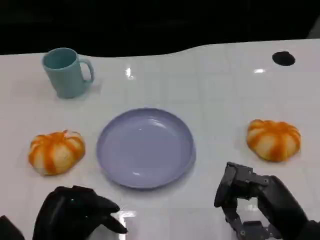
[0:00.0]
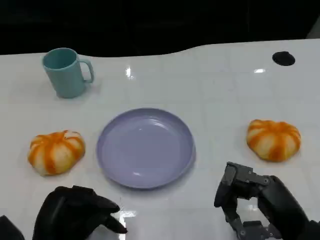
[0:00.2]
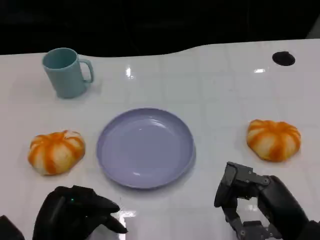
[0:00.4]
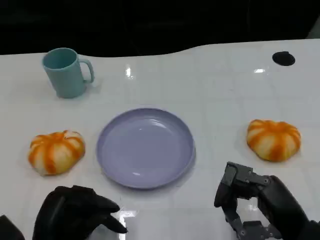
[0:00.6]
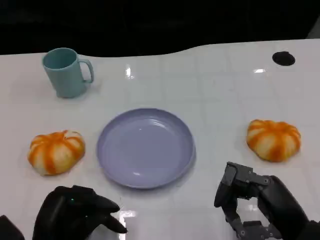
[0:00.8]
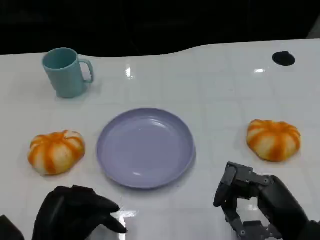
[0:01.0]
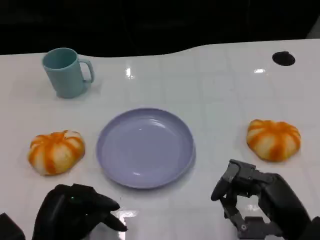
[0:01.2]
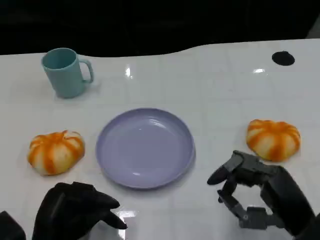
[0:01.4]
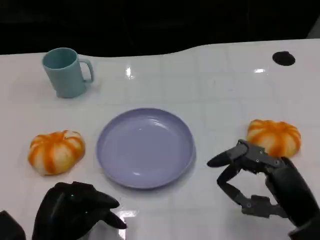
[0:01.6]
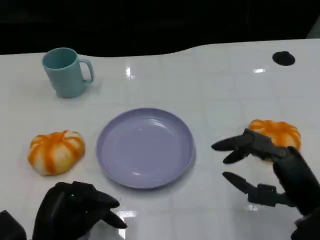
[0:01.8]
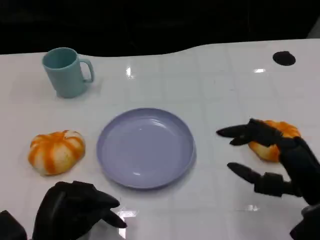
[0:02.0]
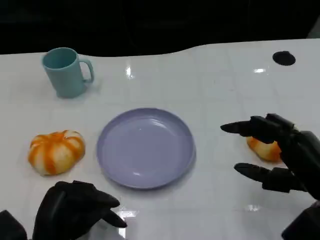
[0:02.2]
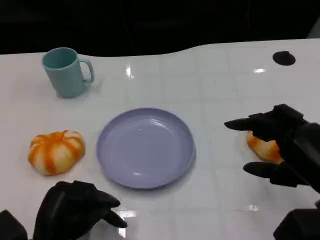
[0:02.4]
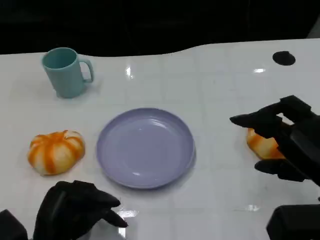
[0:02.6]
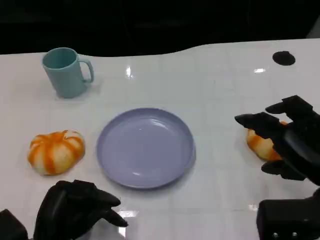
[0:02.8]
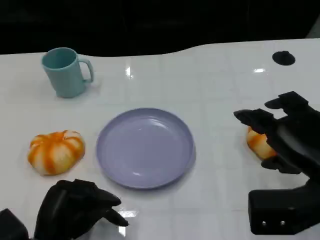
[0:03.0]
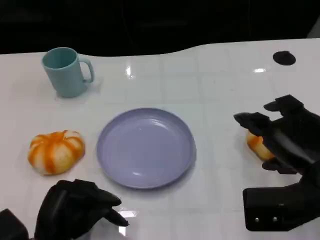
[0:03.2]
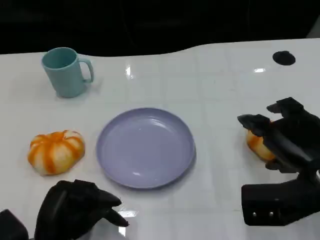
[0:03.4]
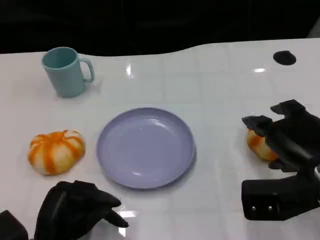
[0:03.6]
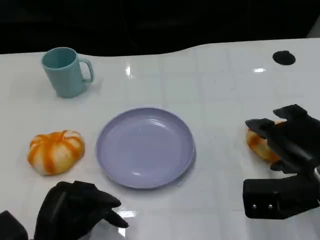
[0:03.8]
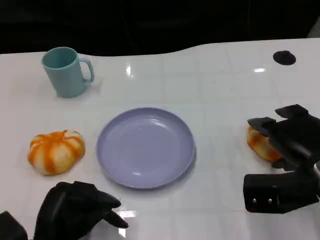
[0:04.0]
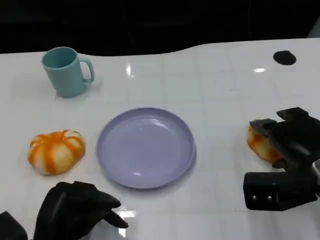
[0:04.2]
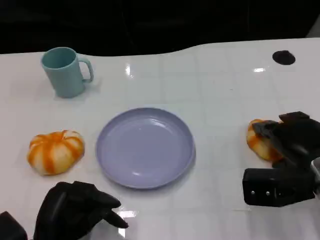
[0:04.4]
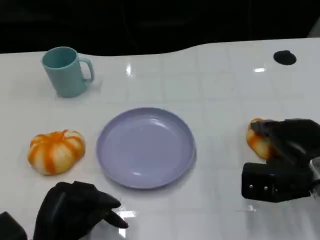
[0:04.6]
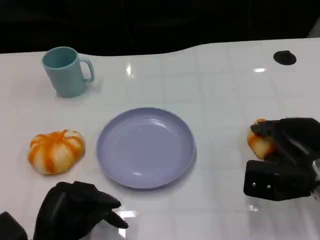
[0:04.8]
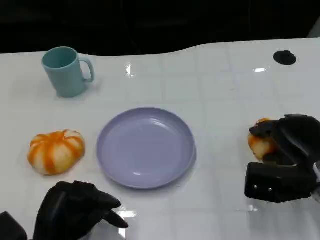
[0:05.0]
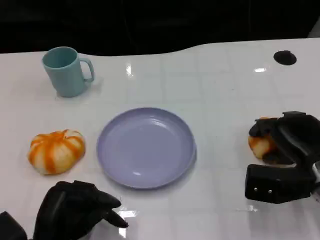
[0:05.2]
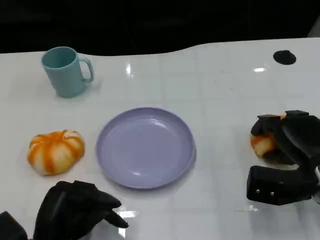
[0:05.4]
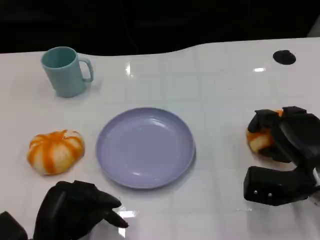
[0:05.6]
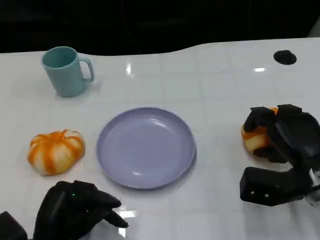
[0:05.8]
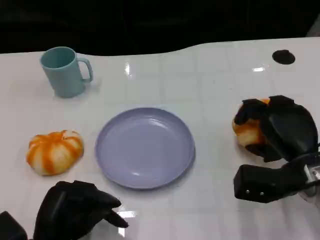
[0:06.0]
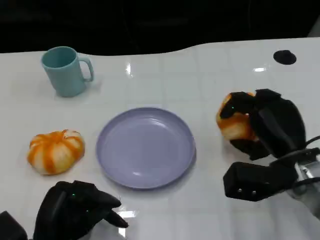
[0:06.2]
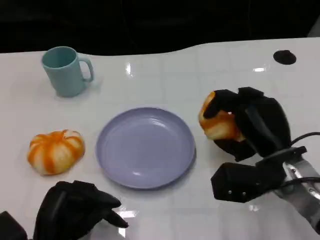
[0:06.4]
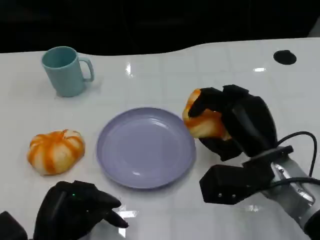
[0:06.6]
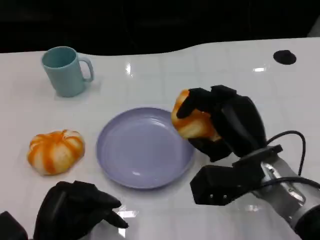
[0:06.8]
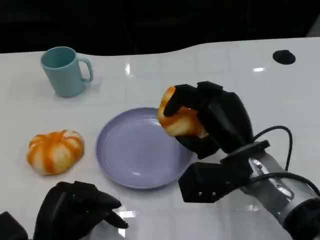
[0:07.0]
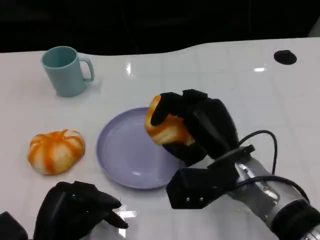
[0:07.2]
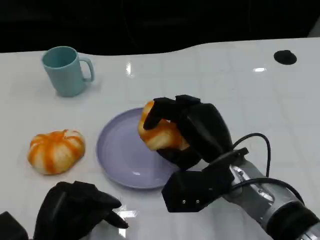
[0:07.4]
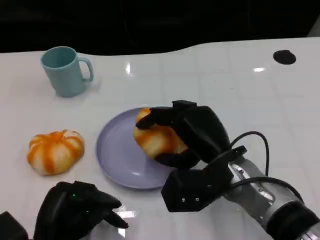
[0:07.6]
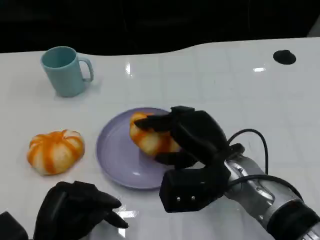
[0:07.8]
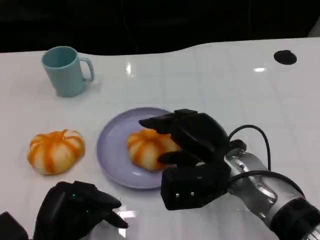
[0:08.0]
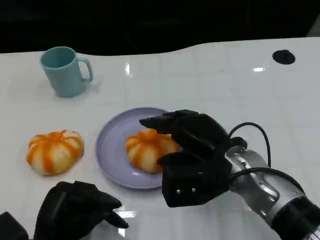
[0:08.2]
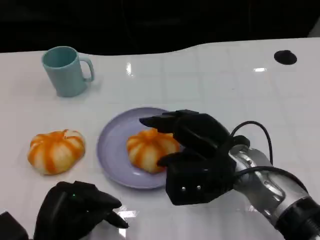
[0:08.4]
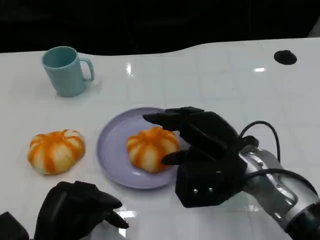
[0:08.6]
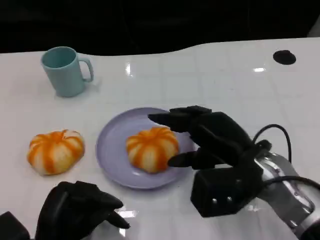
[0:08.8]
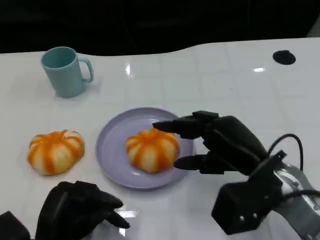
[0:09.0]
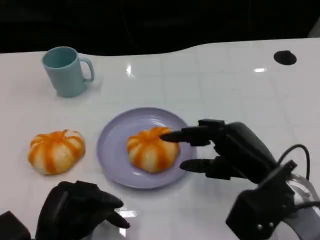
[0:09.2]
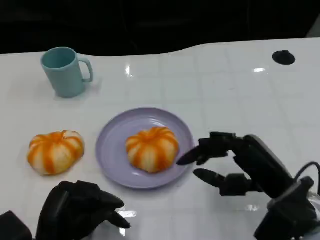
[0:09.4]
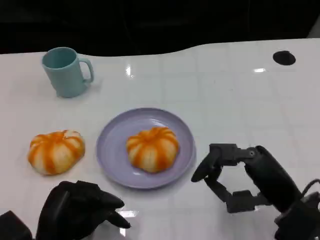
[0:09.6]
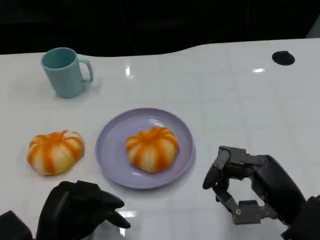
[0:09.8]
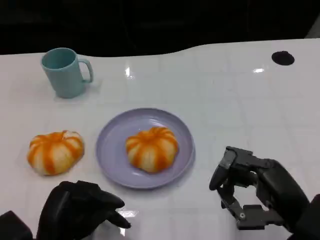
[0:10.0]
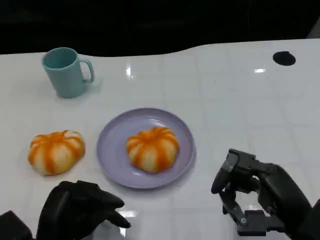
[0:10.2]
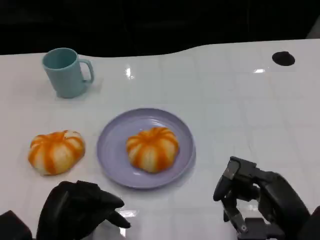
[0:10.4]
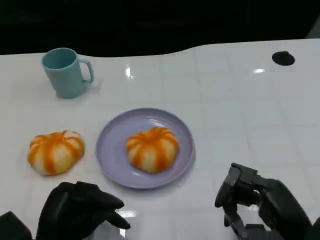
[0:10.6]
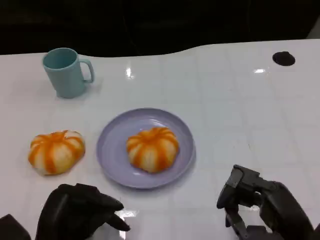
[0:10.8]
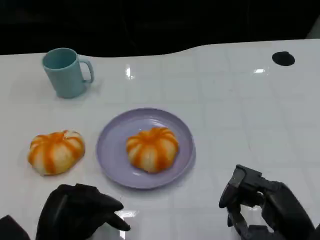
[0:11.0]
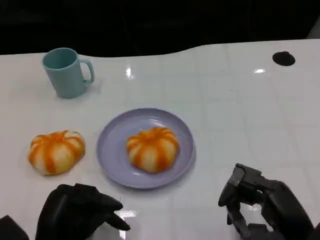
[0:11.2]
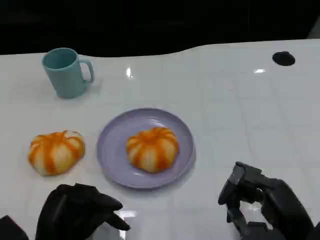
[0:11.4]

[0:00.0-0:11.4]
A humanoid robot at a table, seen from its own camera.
Task of the whole recording: Grasp the bread from the table and place it into the plate.
0:00.0 to 0:01.4: The hands make only small movements.
0:01.4 to 0:02.8: The right hand moves upward, some 5 cm.
0:02.8 to 0:04.2: The right hand goes roughly 10 cm forward and downward.
0:05.6 to 0:07.2: The right hand travels to the left by some 15 cm.
0:08.6 to 0:10.0: The right hand heads backward and to the right, covering about 15 cm.
0:10.0 to 0:11.4: The hands make only small movements.

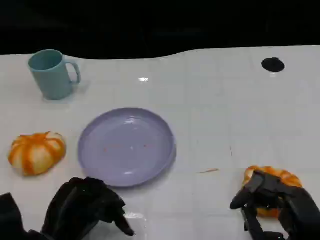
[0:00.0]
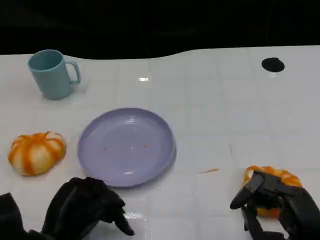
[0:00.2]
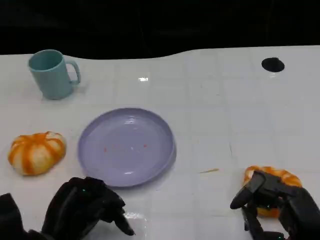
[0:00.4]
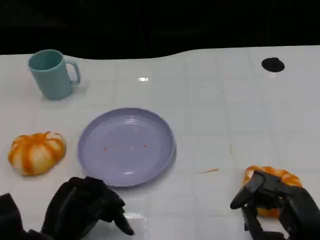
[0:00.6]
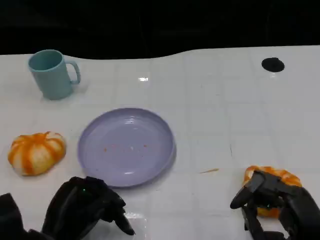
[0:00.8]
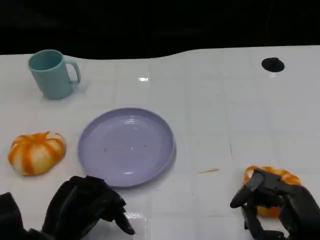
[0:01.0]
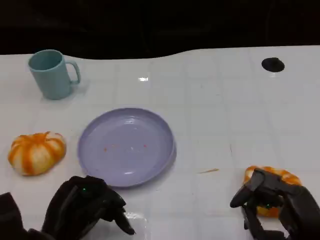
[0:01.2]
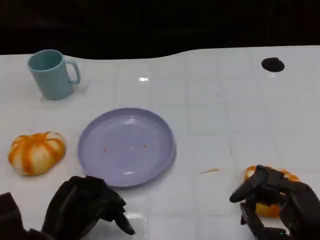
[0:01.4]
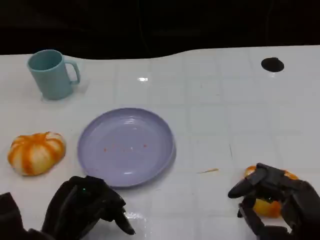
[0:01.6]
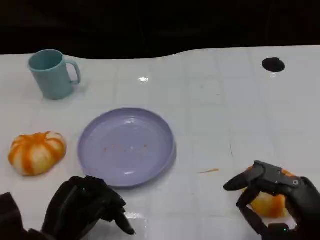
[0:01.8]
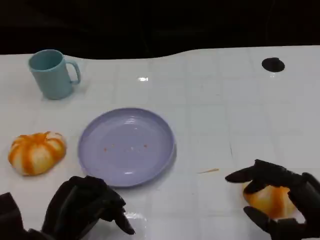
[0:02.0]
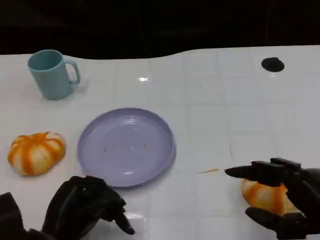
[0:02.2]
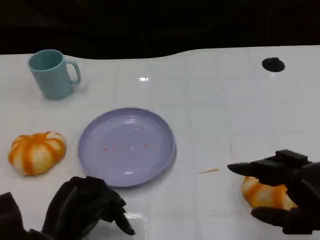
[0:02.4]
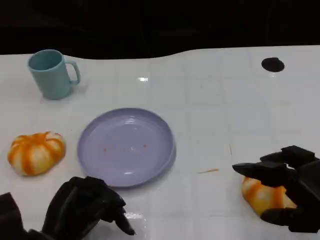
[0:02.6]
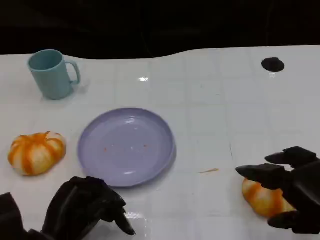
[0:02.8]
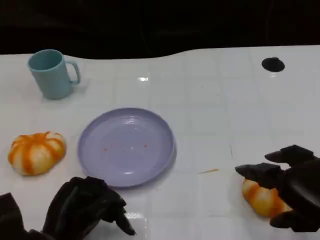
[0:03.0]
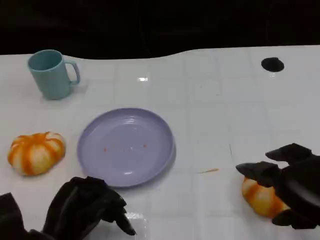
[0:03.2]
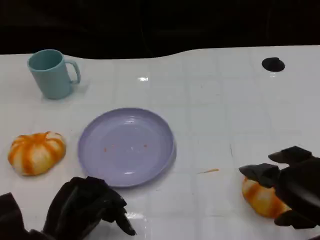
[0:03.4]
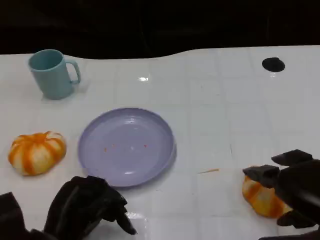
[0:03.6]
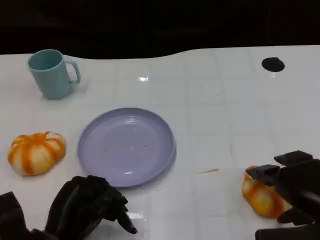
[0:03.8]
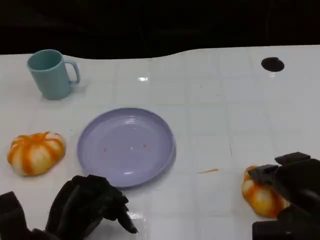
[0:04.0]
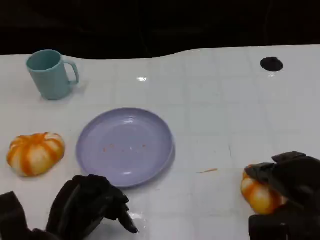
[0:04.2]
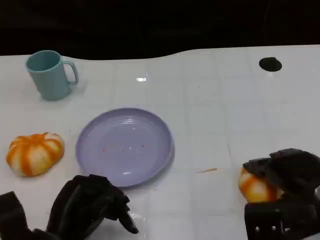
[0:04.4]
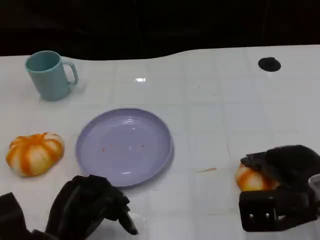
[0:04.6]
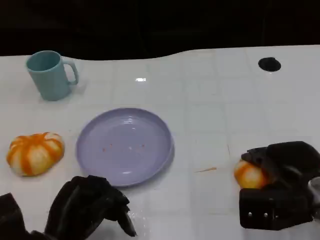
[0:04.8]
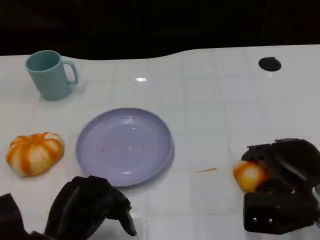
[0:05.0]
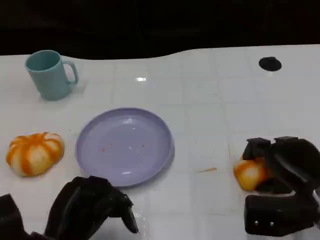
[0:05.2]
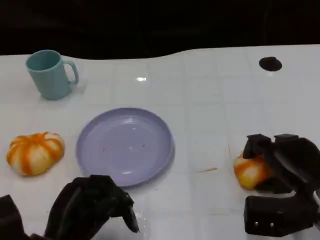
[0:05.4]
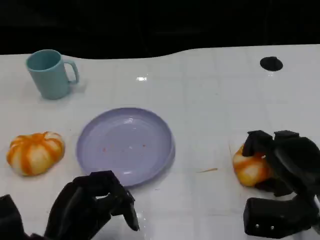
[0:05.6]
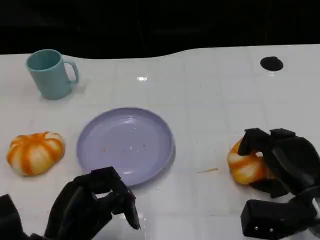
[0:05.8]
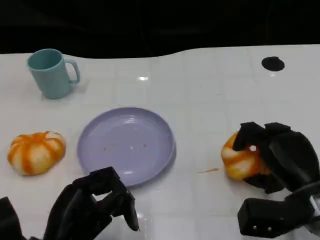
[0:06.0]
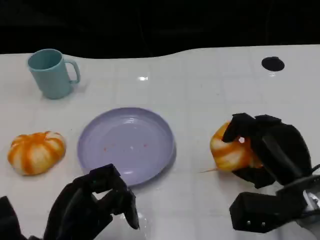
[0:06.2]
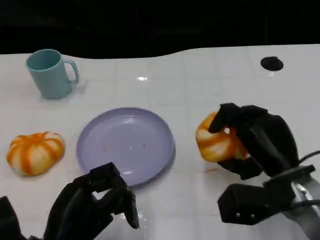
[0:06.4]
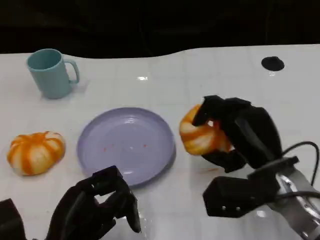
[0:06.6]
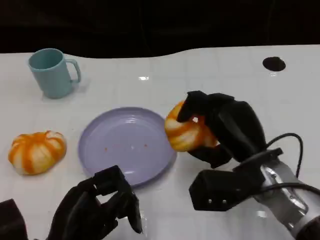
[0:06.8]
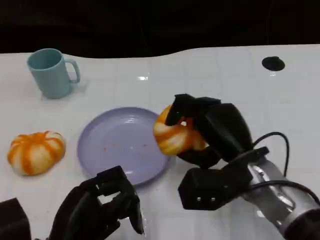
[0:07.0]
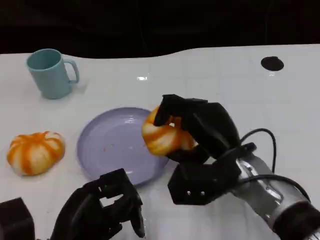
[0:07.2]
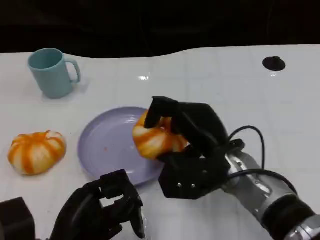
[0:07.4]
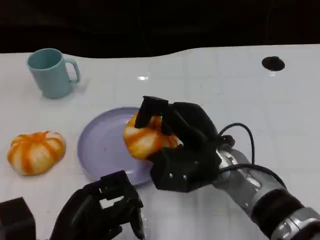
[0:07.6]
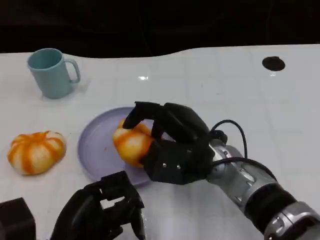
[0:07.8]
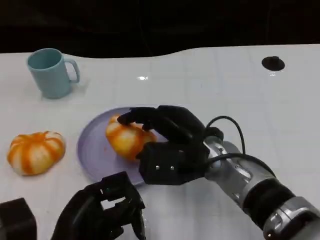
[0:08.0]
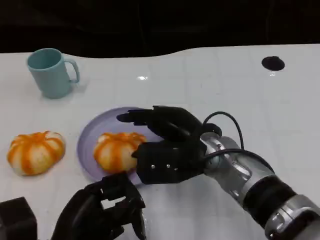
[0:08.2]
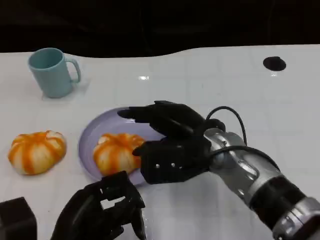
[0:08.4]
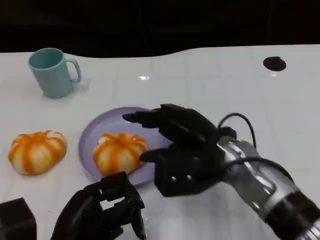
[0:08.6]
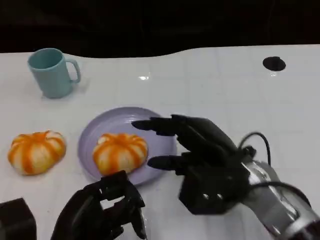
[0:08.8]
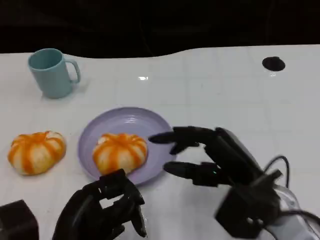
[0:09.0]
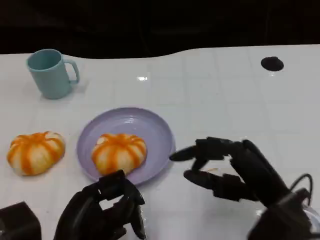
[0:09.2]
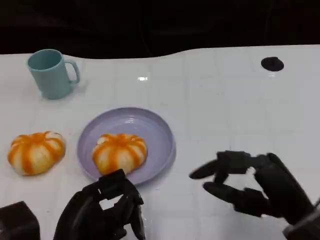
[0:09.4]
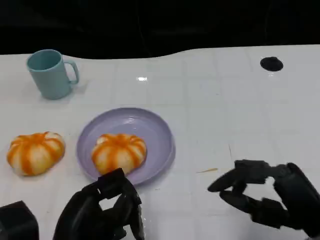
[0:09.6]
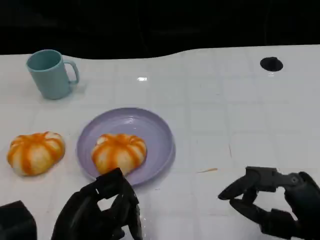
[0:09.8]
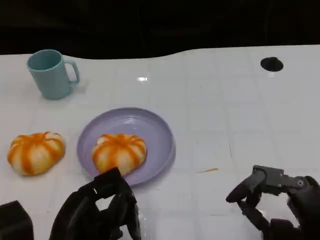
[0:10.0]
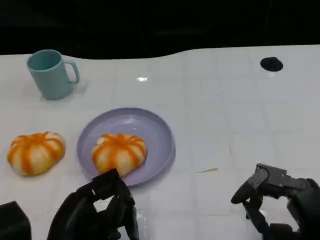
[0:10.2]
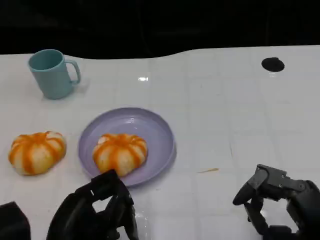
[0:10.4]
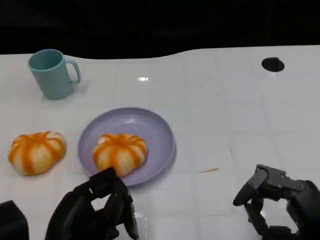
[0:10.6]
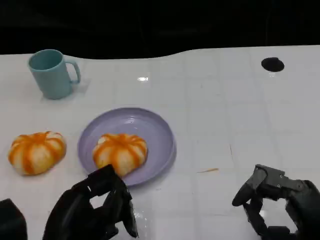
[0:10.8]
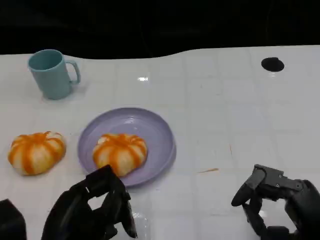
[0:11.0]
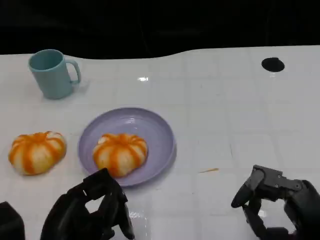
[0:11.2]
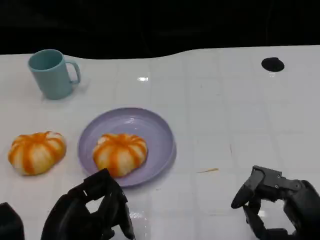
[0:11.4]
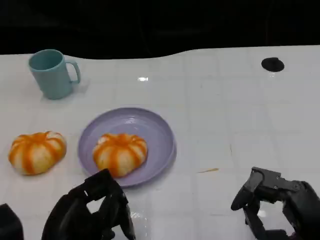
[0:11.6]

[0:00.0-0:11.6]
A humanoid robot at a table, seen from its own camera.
Task of the whole recording: Grasp the bread from the table and place it into the plate.
0:00.0 to 0:01.4: Neither hand changes place.
0:01.4 to 0:02.8: The right hand heads upward, covering roughly 5 cm.
0:02.8 to 0:04.4: The right hand moves forward and downward, approximately 10 cm.
0:05.8 to 0:07.2: The right hand goes roughly 10 cm to the left.
0:08.8 to 0:10.2: The right hand travels backward and to the right by approximately 15 cm.
0:10.2 to 0:11.6: Neither hand changes place.
